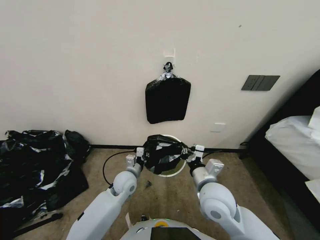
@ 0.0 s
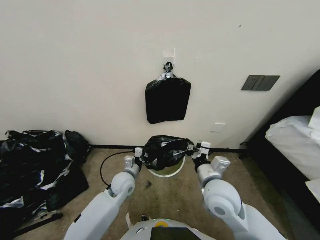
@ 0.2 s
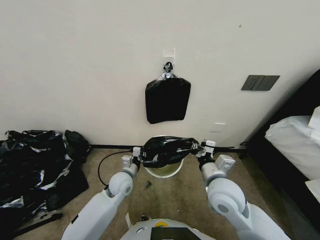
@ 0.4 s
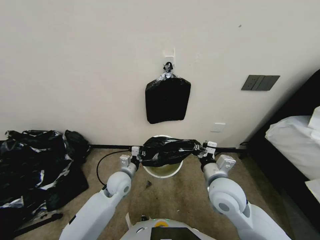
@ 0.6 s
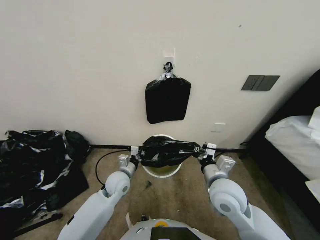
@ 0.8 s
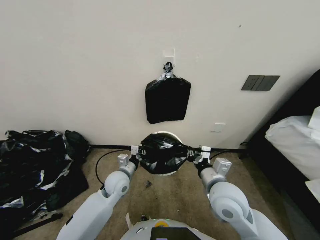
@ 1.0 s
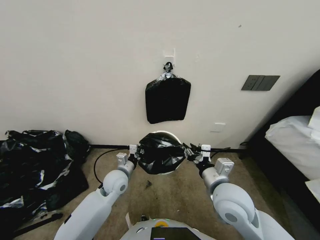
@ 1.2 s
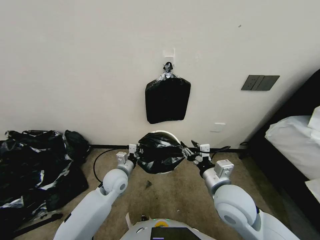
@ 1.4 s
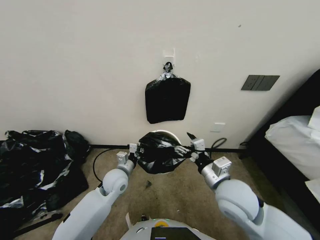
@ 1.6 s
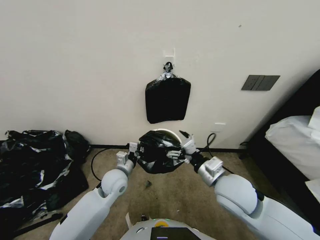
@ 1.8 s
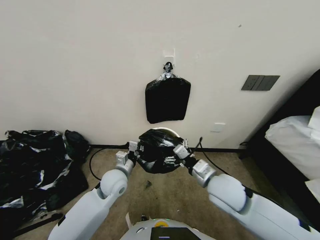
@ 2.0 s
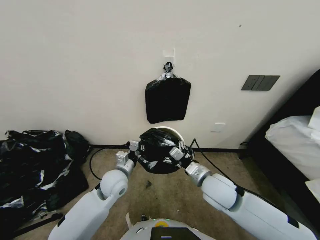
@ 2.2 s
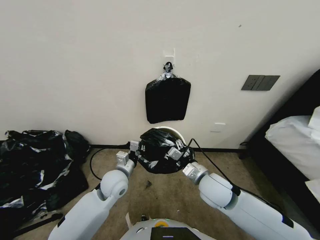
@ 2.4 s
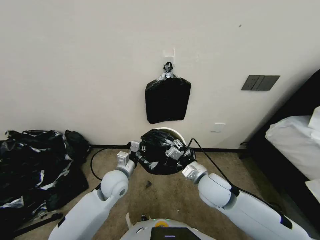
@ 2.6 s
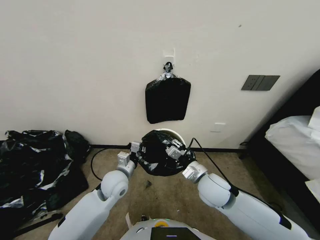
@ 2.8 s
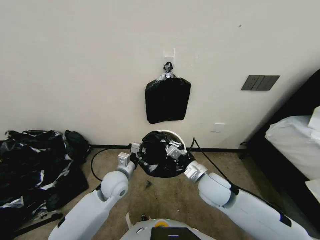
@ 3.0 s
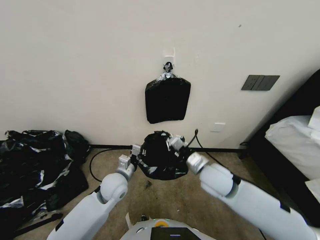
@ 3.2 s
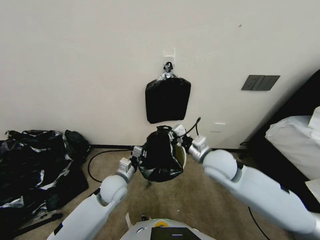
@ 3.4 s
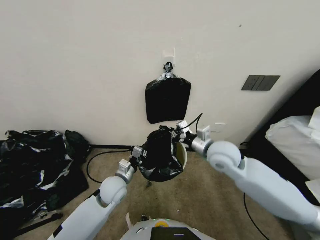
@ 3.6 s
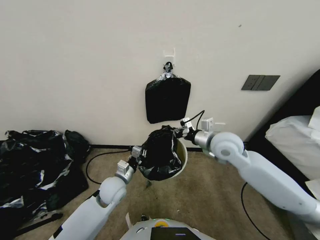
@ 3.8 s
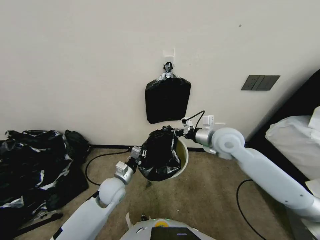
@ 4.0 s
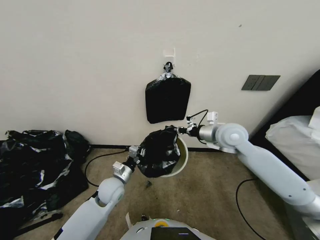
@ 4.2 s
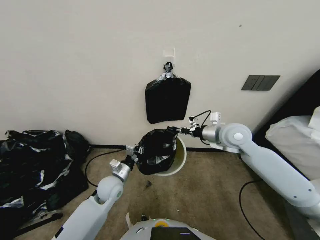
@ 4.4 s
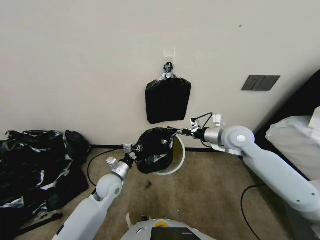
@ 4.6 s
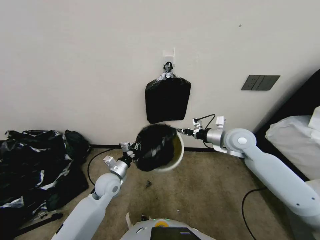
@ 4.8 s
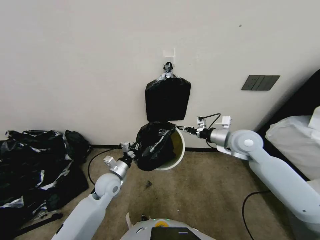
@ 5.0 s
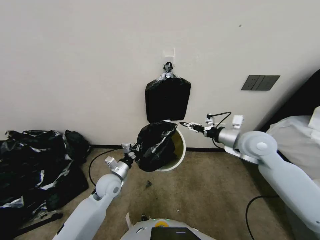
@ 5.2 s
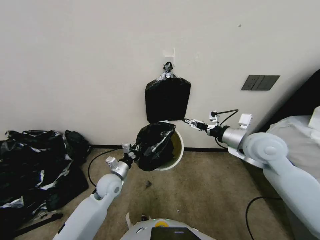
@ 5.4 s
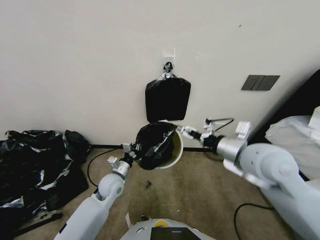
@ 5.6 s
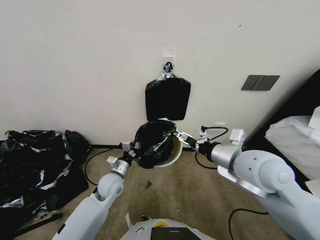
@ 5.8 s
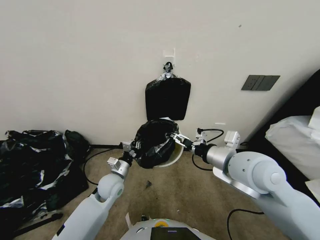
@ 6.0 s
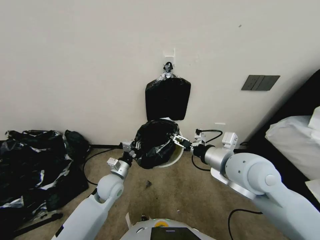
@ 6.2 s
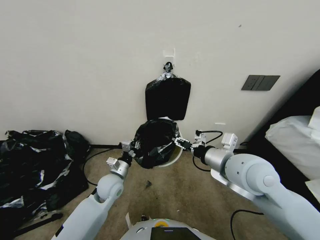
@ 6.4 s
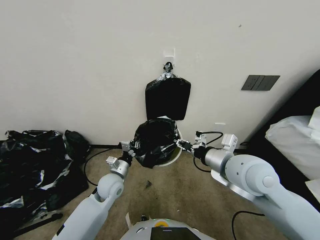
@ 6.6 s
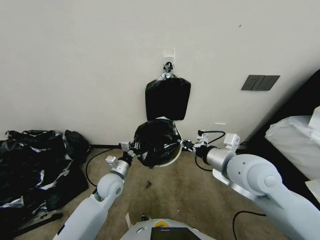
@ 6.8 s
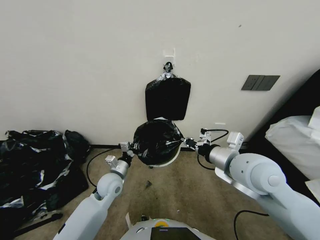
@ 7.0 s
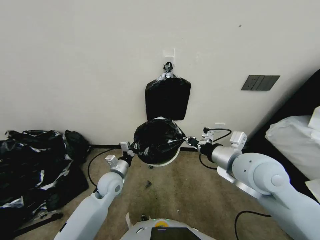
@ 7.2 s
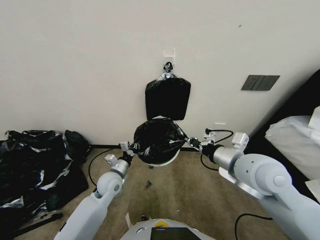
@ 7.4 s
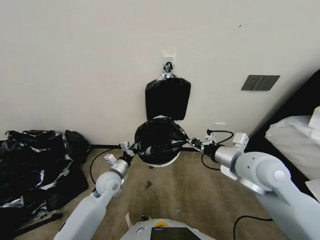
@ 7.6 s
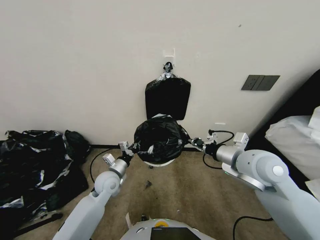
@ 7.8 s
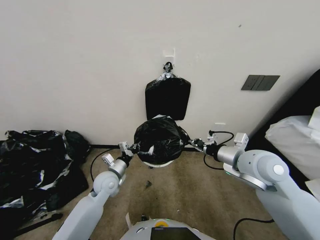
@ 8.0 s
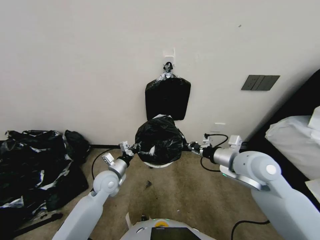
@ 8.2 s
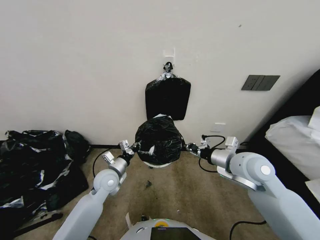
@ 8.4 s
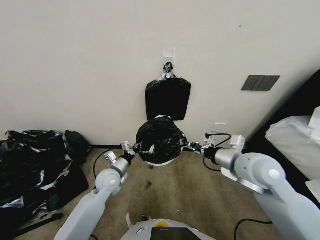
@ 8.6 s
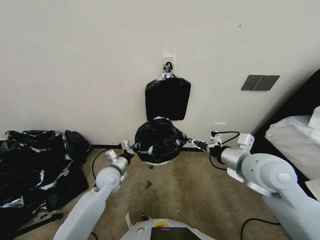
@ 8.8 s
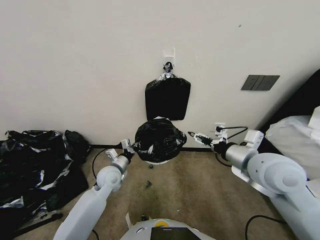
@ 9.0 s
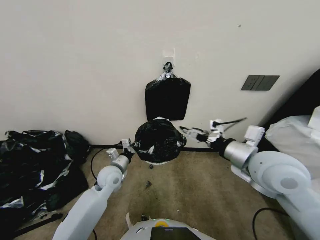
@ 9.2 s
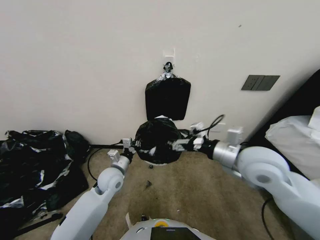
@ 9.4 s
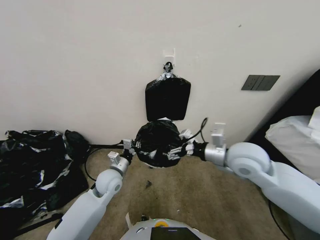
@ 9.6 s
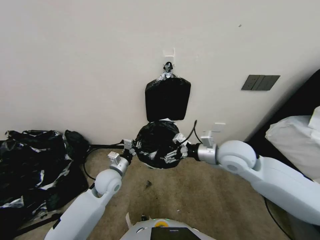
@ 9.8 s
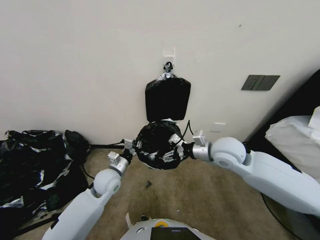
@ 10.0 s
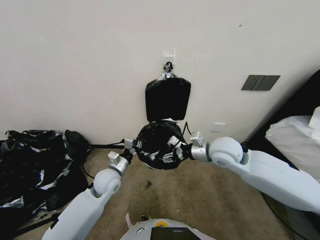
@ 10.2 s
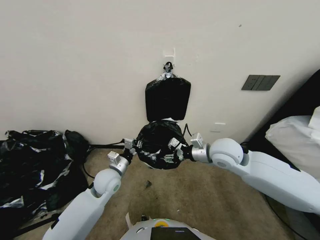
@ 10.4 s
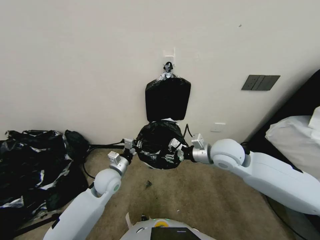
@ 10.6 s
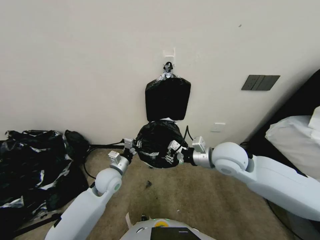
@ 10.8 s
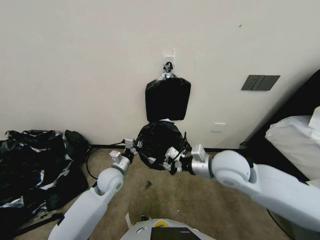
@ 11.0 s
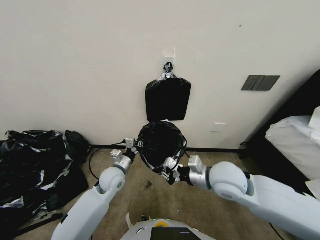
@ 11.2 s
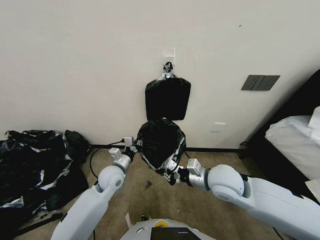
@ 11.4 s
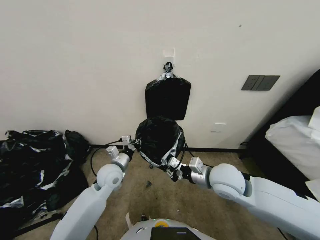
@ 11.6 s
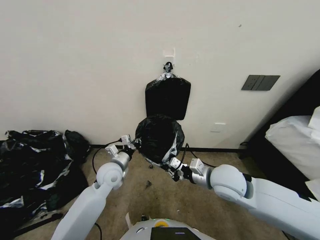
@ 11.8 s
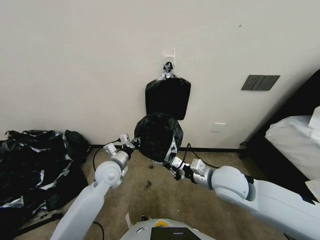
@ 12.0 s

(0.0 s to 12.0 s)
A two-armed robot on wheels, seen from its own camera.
Task of the whole recording: Place a trash bag onto the trash bin.
0.0 s - 1.6 s: The right gripper moves about 5 cm, and opens up. Meanwhile the left gripper ends up approximately 5 cm from where it was.
1.6 s - 3.0 s: The right gripper ends up approximately 5 cm from where it was, and closes up.
3.0 s - 4.4 s: The right gripper is displaced forward, upward and to the right by roughly 20 cm, while the left gripper ends up approximately 5 cm from where it was.
4.4 s - 6.0 s: The right gripper moves backward, about 15 cm, and opens its fingers.
6.0 s - 7.6 s: The right gripper closes up.
7.6 s - 9.0 s: The right gripper opens its fingers.
9.0 s - 10.4 s: The right gripper shifts about 10 cm forward and to the left, and opens and closes again.
10.4 s - 12.0 s: The right gripper heads backward and downward, covering some 10 cm, and closes its fingers.

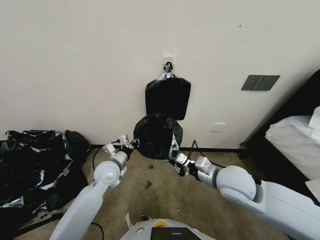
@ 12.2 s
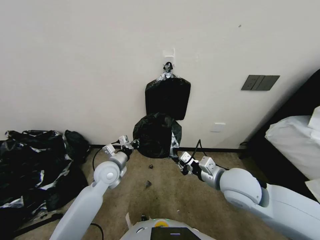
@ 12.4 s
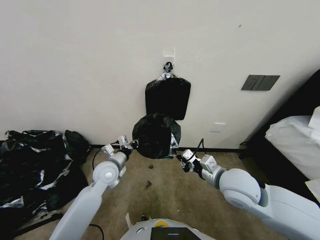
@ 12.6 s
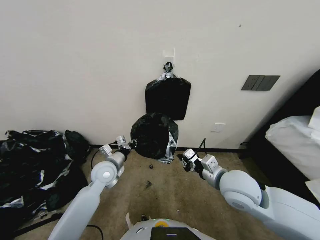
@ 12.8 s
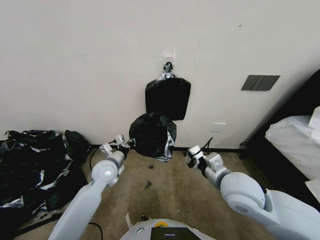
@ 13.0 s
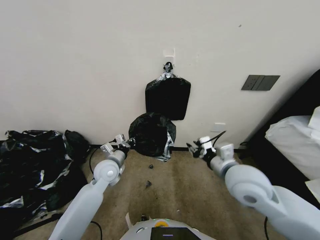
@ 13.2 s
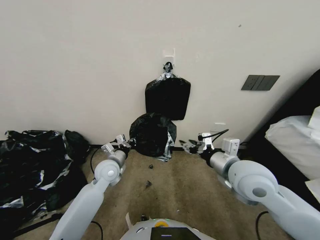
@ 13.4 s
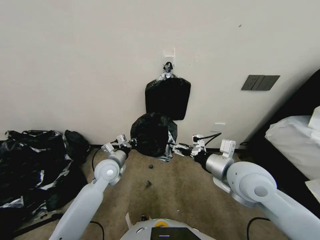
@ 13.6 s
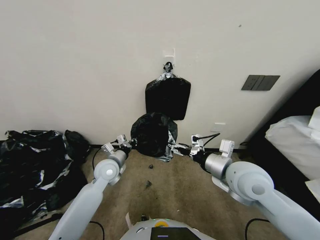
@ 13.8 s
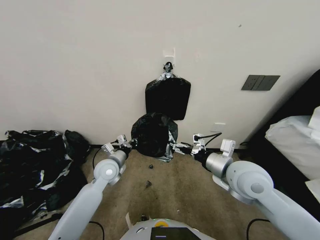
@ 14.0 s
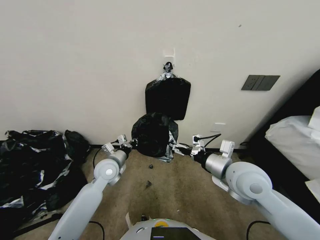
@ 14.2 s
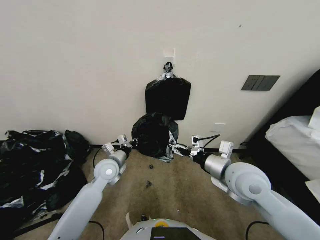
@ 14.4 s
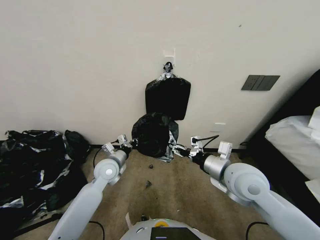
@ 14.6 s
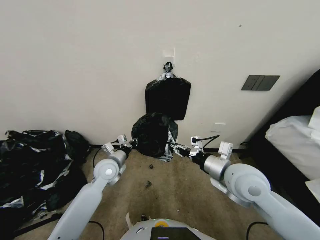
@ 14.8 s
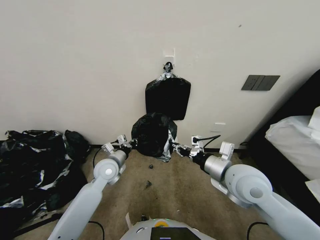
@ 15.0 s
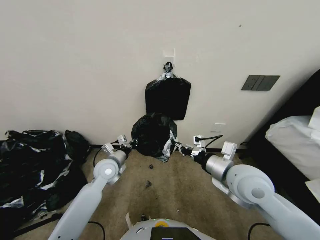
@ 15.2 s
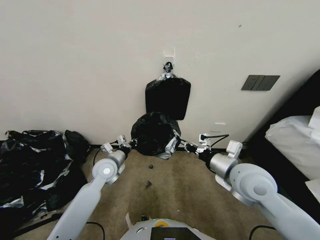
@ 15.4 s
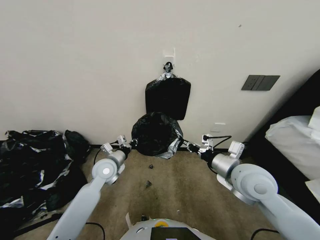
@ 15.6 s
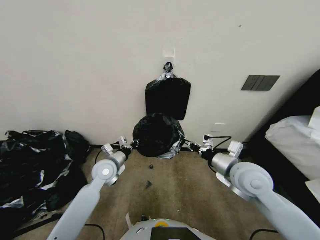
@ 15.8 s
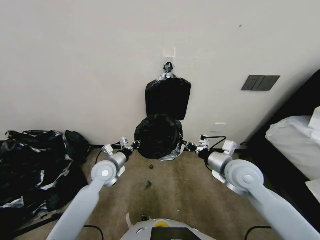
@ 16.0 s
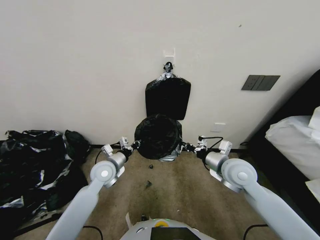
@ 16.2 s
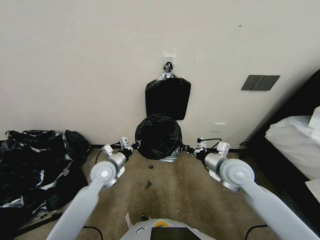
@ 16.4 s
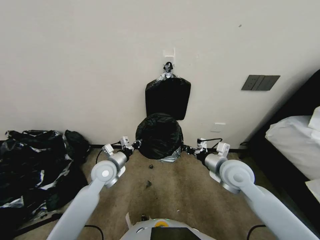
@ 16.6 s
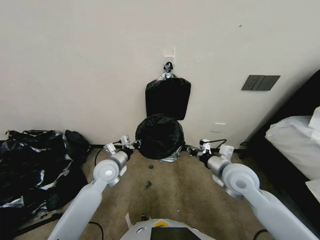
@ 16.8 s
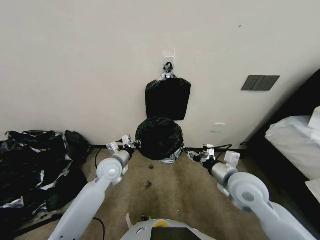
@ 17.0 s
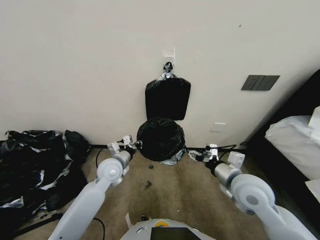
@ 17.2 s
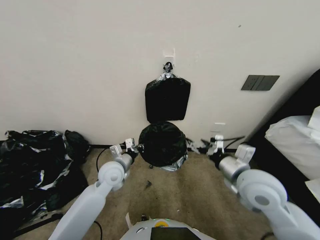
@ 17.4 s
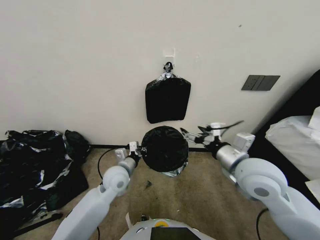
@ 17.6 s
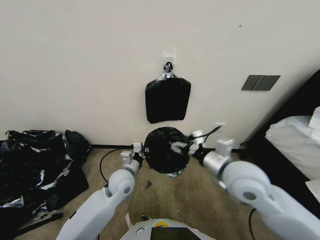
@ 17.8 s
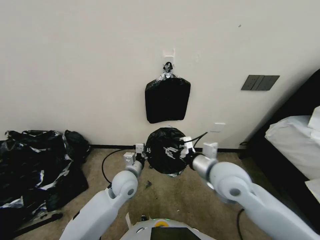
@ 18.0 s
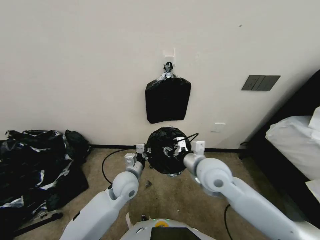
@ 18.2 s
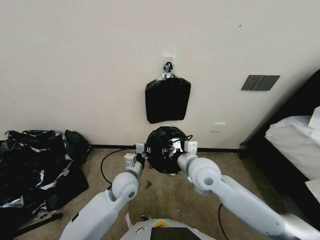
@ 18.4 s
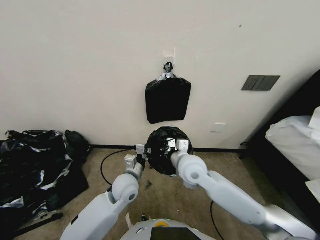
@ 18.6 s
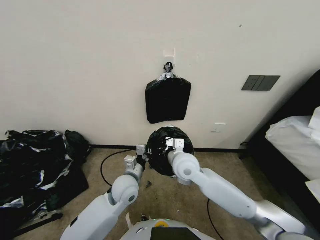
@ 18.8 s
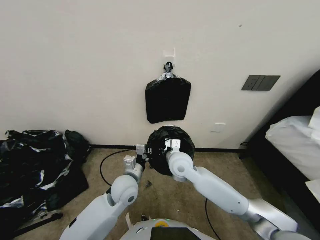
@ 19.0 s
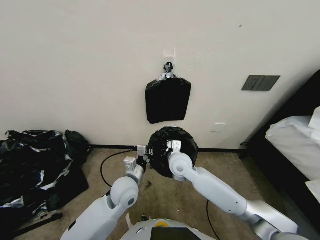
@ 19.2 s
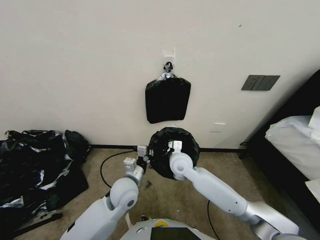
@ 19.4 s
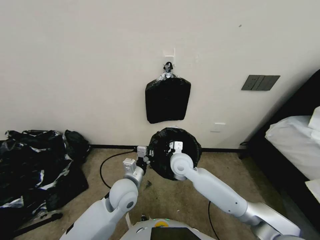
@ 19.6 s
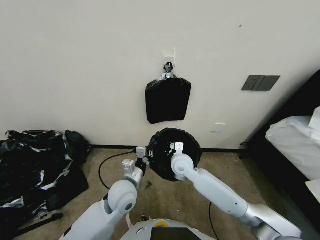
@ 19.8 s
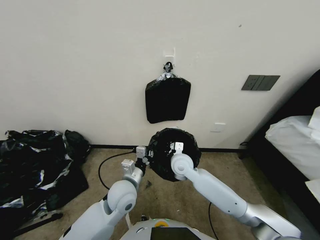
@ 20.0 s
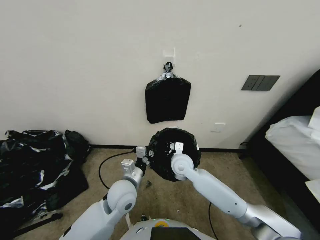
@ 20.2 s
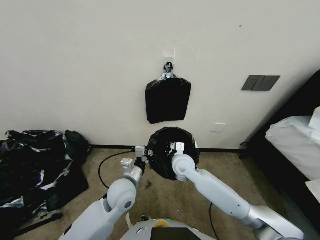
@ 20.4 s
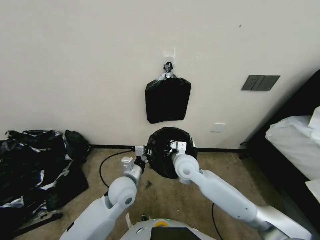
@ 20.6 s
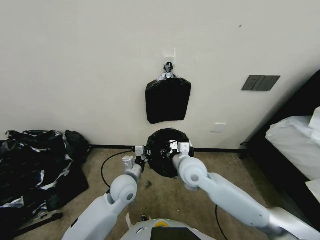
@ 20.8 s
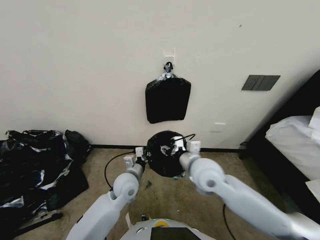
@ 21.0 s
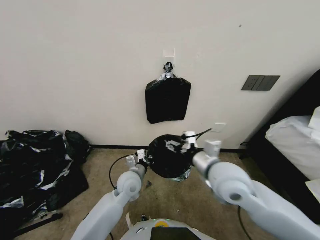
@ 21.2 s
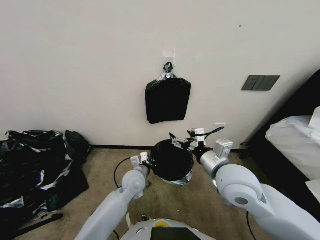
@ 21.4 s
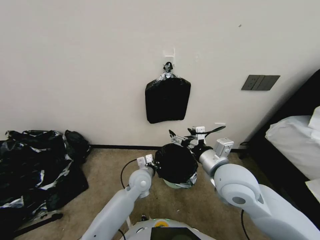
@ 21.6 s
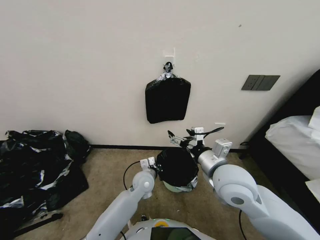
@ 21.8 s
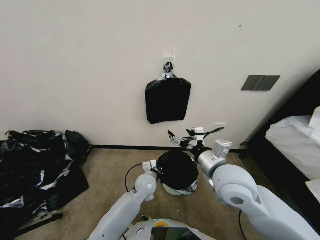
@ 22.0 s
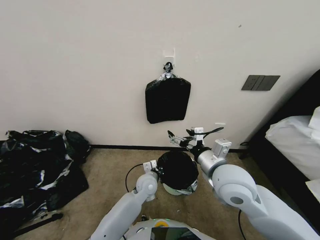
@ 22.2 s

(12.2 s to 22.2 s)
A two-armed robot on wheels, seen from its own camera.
Task of the whole recording: Place a trash bag onto the trash bin.
12.2 s - 13.6 s: The right gripper moves upward, about 5 cm, and opens.
13.6 s - 15.0 s: The right gripper closes.
15.0 s - 16.4 s: The right gripper moves downward and forward, roughly 5 cm.
16.4 s - 18.0 s: The right gripper heads to the left, backward and upward, covering approximately 10 cm, and opens its fingers; the left gripper shifts about 10 cm to the right.
18.0 s - 19.4 s: The right gripper goes roughly 20 cm to the left, forward and downward, and closes.
19.4 s - 20.8 s: The right gripper changes place by roughly 5 cm.
20.8 s - 22.2 s: The left gripper goes approximately 10 cm downward and to the right. Meanwhile the right gripper travels backward, upward and to the right by about 15 cm, and opens.
